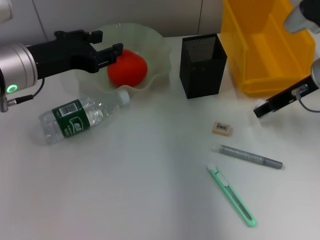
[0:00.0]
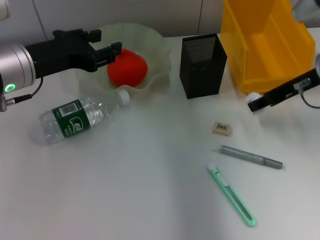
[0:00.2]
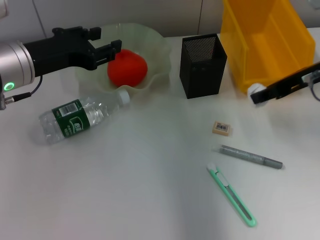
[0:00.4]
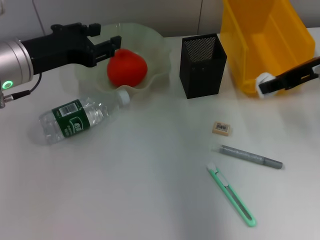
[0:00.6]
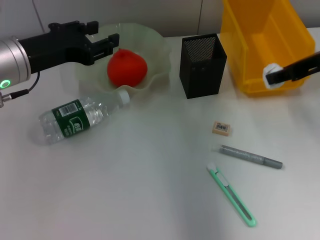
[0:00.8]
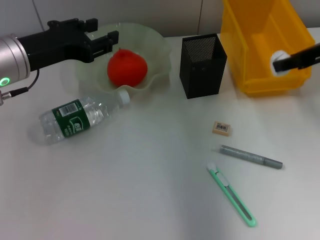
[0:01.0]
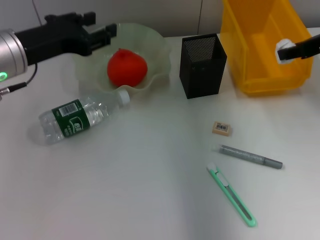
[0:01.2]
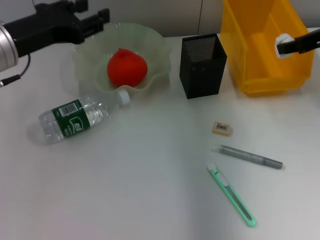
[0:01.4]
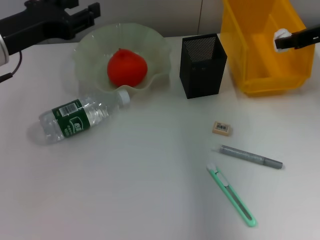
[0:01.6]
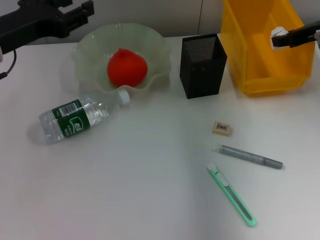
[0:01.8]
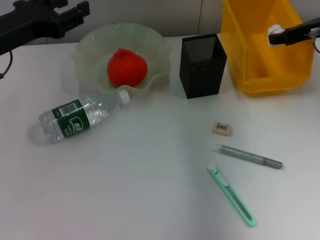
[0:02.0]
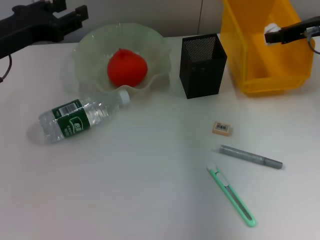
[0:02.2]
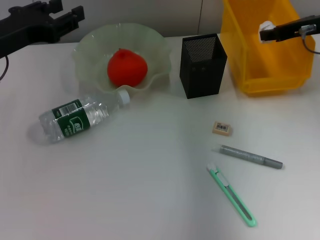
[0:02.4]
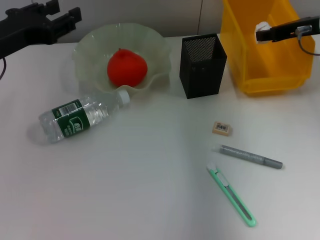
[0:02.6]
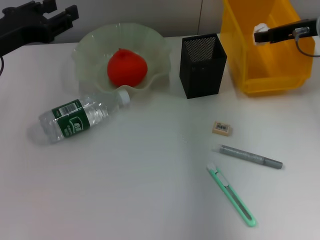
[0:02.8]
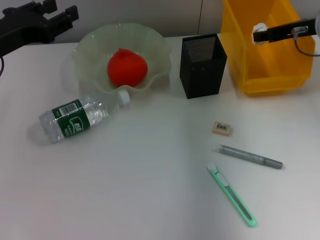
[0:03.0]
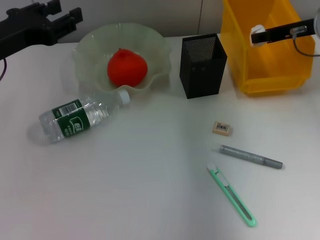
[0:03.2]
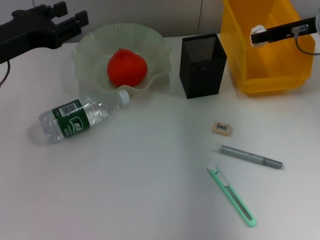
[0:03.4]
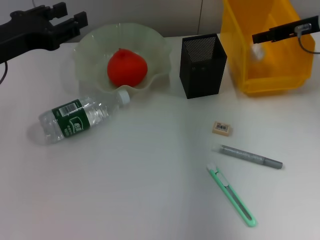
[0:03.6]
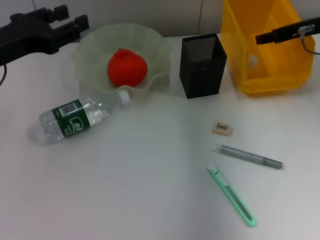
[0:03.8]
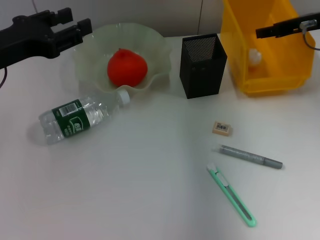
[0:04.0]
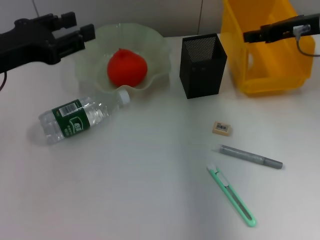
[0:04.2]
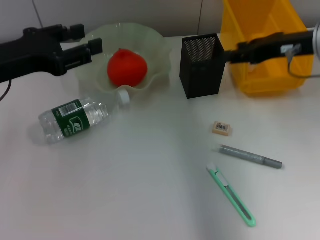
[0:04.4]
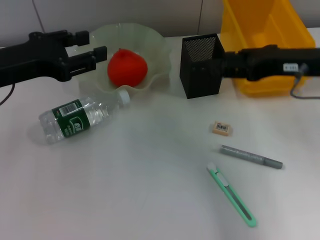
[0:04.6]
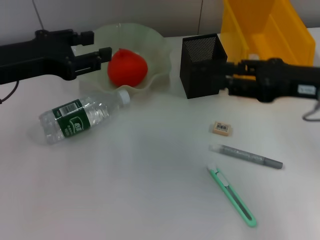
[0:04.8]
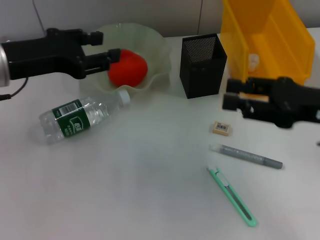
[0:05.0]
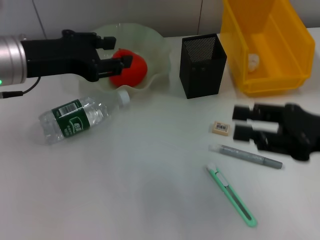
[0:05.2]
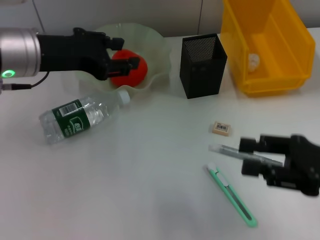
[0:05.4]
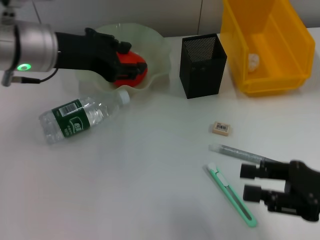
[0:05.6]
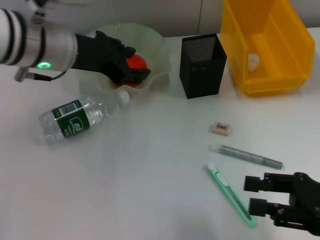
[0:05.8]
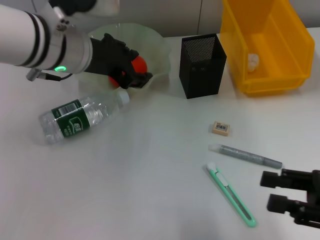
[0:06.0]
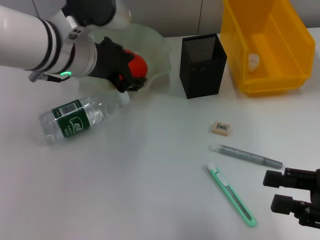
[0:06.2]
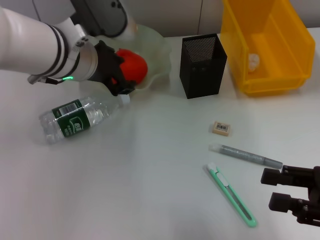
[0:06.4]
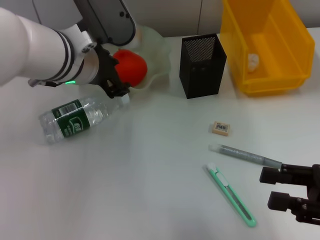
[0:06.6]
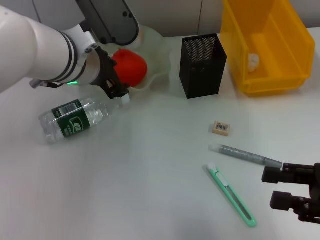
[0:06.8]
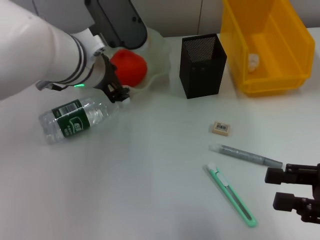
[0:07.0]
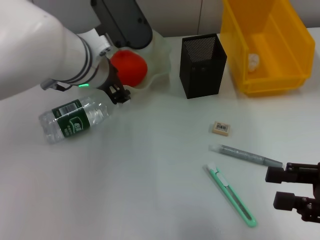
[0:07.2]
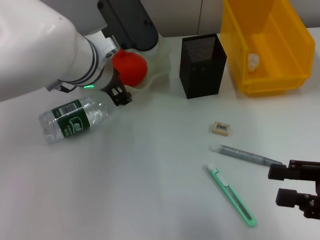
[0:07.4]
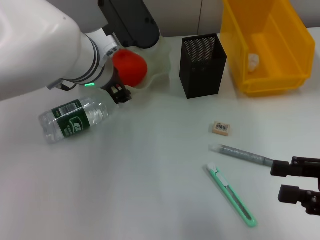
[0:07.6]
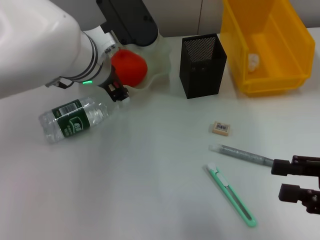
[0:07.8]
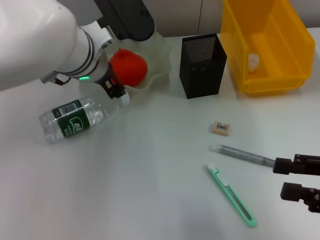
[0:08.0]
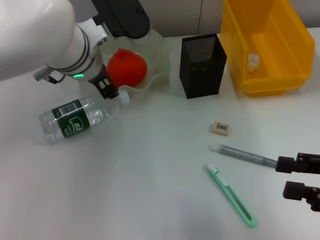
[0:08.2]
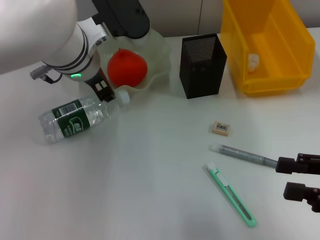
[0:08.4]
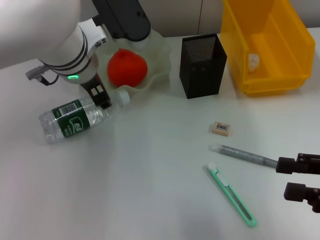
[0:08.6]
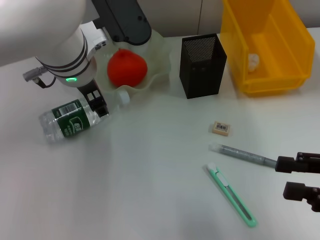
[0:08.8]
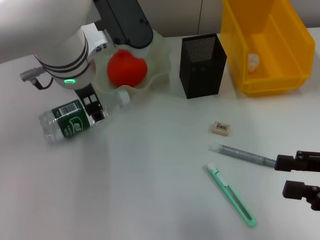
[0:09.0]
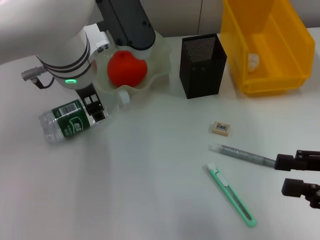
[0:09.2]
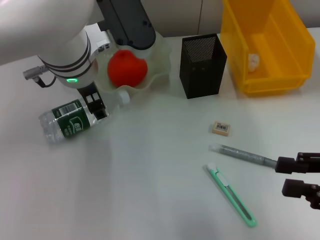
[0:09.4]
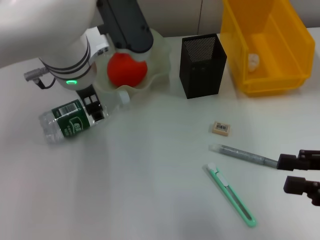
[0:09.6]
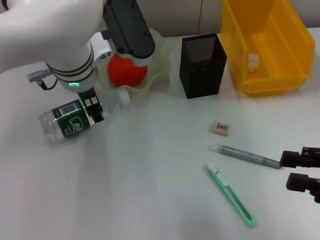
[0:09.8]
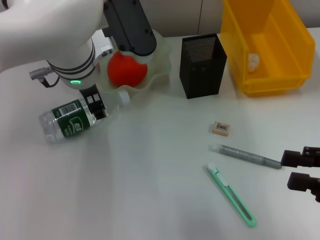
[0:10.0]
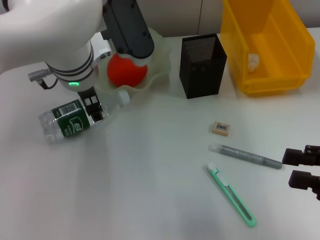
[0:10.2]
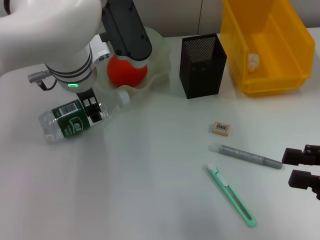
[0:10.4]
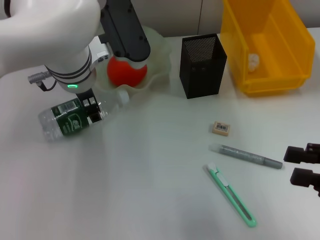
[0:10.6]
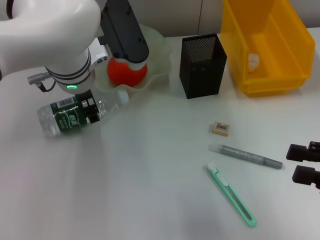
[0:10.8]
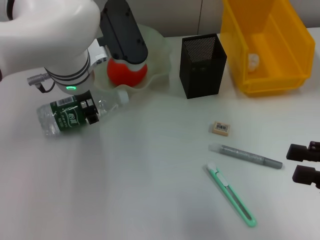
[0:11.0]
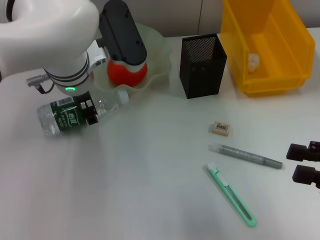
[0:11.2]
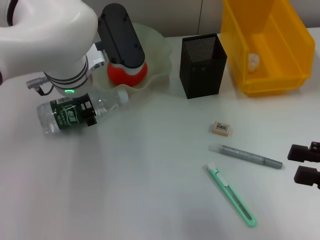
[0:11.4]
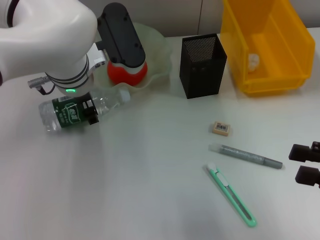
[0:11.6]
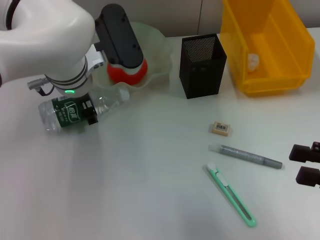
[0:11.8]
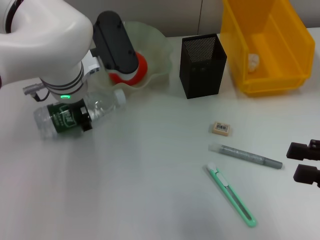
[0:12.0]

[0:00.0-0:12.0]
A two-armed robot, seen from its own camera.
Step, 0:00.0 to 0:03.8: Place the paper ball into the trash can with the right hand.
0:00.0 to 0:01.6: The right gripper ends up some 5 cm from where it was.
0:01.6 to 0:03.0: There are only small adjustments of the grippers.
0:03.0 to 0:04.4: The right gripper is displaced backward by approximately 5 cm.
0:04.4 to 0:06.0: The left gripper travels to the right by about 15 cm; the right gripper travels backward and downward by approximately 20 cm.
0:06.0 to 0:07.6: The left gripper ends up some 5 cm from where it was.
0:07.6 to 0:12.0: The grippers move only a little.

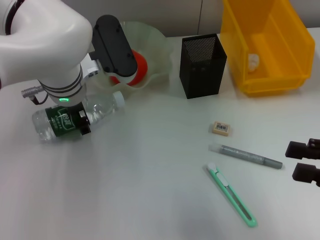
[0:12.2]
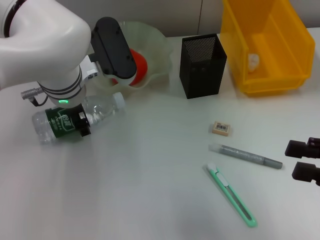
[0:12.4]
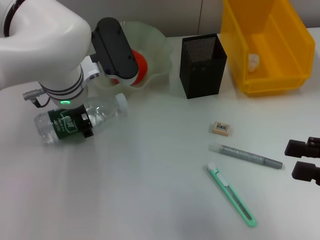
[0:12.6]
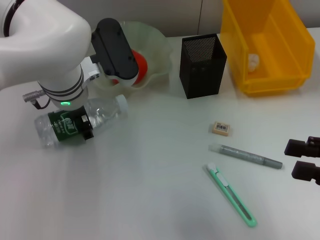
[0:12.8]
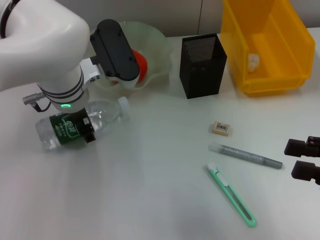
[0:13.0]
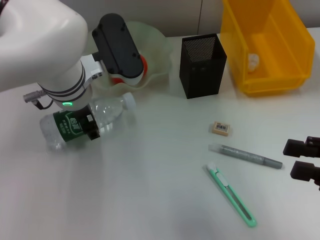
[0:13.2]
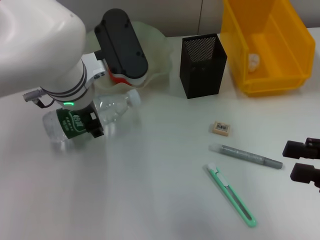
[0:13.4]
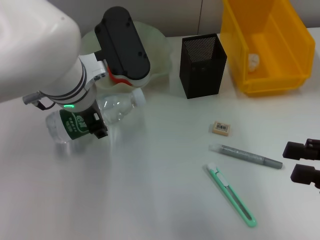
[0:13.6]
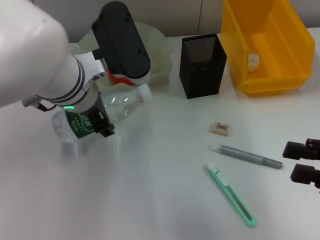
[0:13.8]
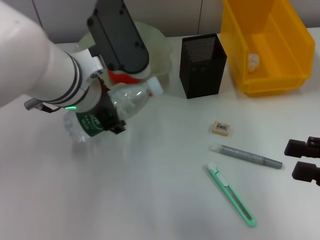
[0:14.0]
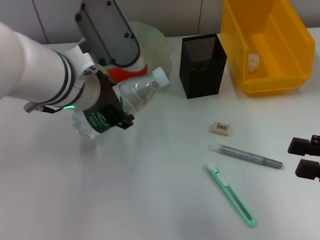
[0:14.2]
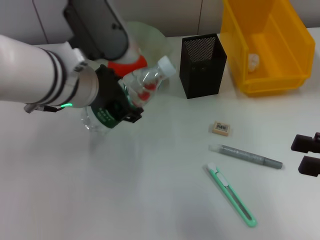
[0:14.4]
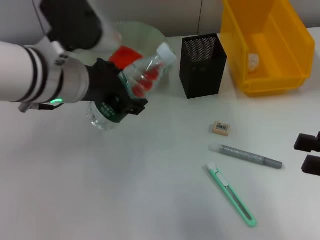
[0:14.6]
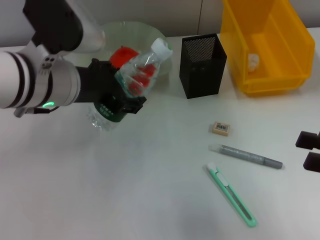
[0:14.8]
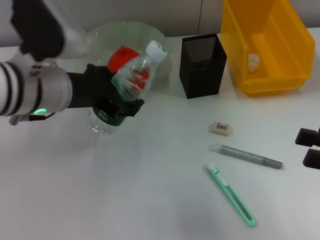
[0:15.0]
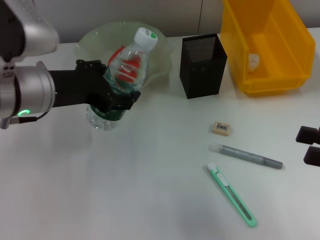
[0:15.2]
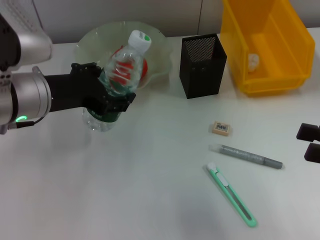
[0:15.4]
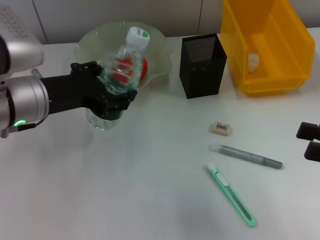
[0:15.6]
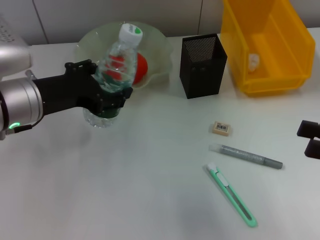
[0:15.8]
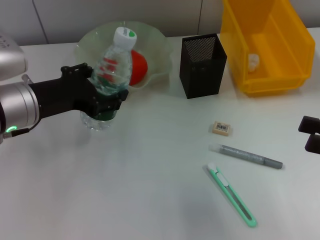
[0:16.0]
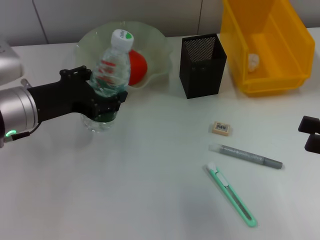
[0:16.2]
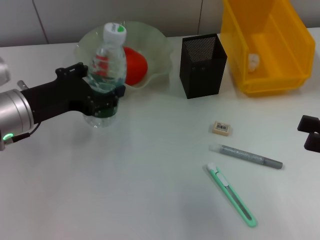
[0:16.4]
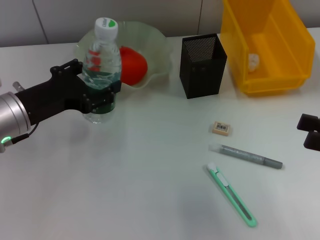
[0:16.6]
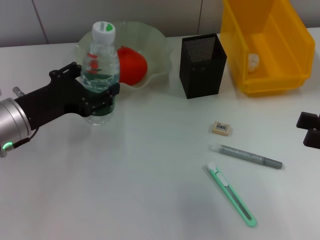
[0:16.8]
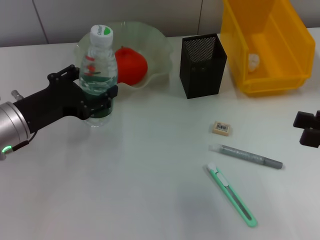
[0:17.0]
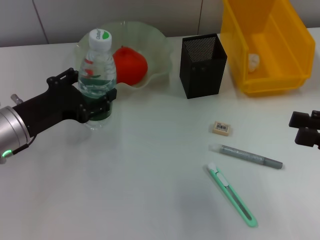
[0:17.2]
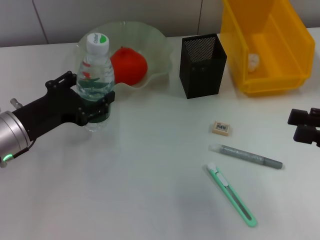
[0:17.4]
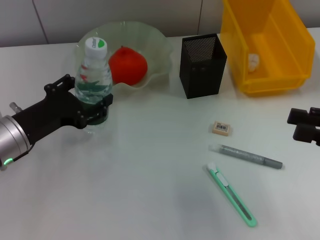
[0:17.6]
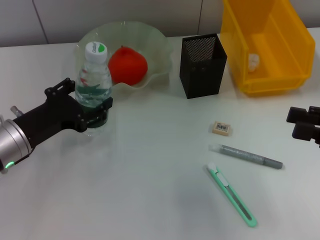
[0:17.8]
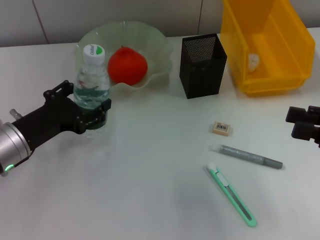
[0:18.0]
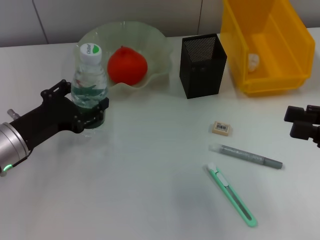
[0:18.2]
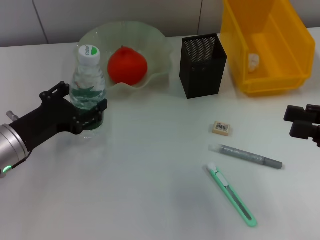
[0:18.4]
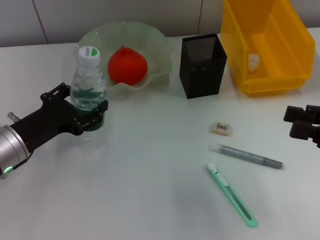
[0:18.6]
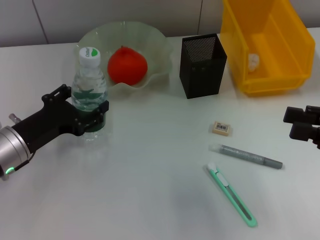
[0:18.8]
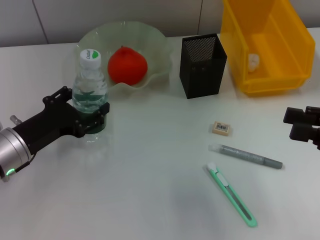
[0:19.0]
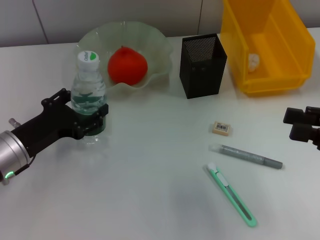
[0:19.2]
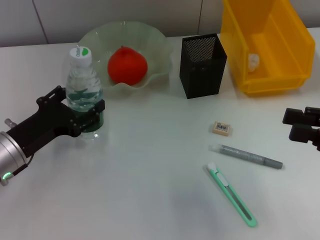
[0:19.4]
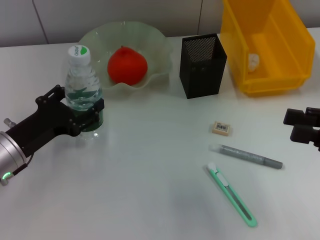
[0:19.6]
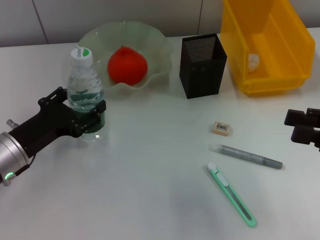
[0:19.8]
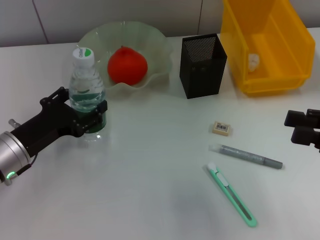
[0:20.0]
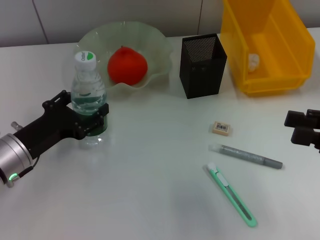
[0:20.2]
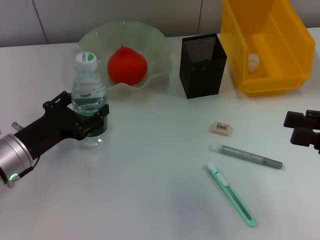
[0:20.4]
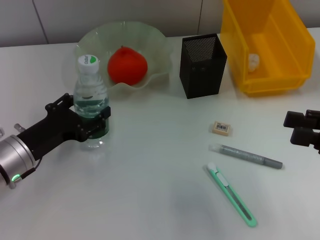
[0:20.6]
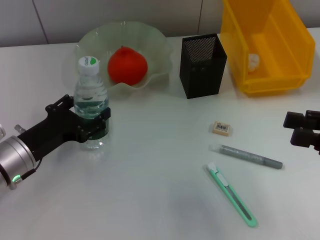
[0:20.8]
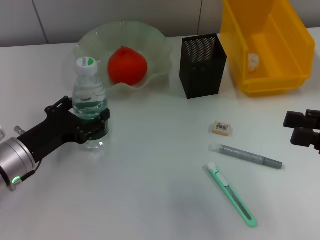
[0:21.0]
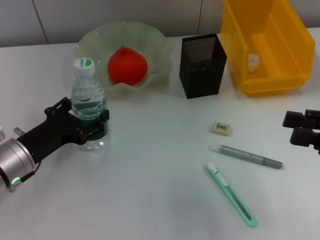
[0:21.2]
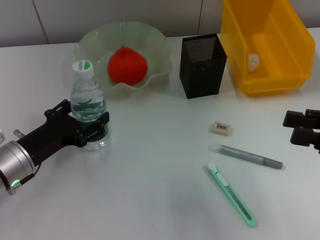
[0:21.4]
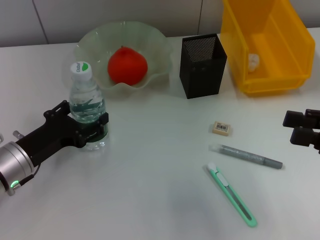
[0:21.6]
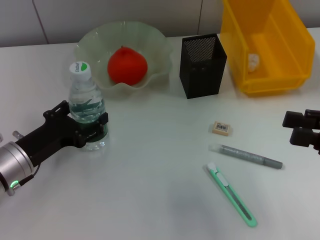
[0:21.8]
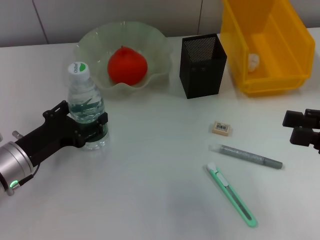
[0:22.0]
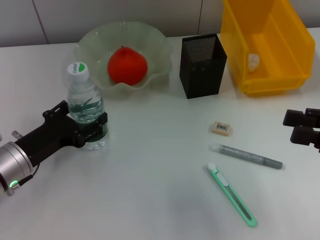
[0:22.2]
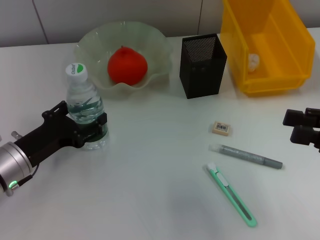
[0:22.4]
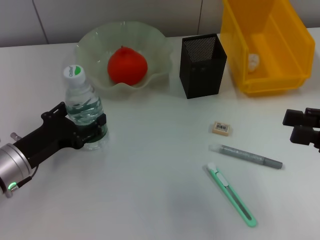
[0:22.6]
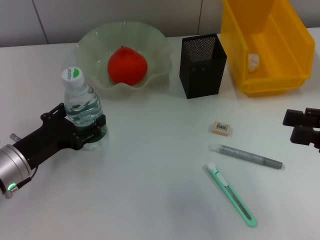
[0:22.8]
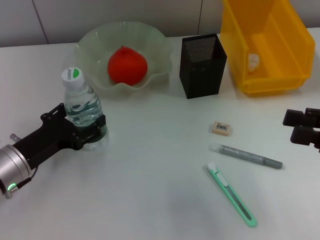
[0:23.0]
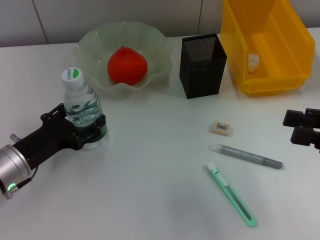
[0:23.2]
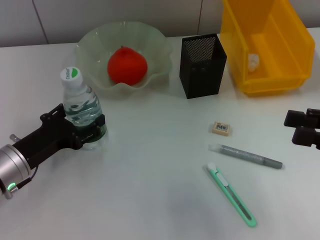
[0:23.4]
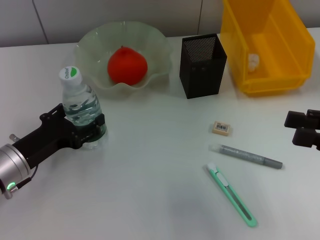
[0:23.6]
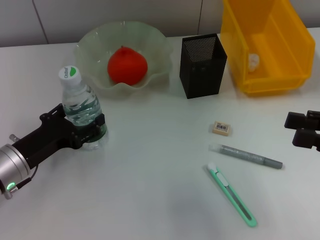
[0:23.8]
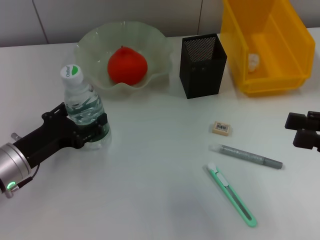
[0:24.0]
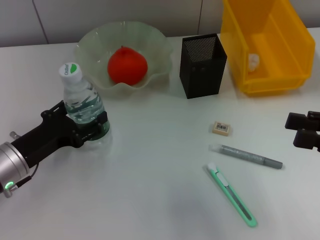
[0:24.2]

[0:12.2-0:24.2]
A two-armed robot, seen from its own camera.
0:12.2 to 0:13.8: The left gripper travels backward by roughly 5 cm.
0:13.8 to 0:15.2: The left gripper travels to the left by approximately 10 cm.
0:15.2 to 0:16.6: The left gripper shifts about 5 cm downward.
0:16.6 to 0:18.2: The left gripper goes some 5 cm downward.
0:18.2 to 0:21.2: The grippers move only a little.
0:21.2 to 0:24.2: Both grippers stay about where they are.
